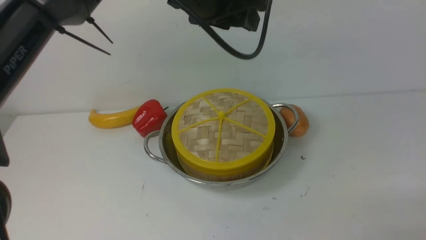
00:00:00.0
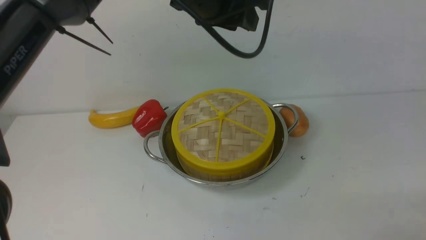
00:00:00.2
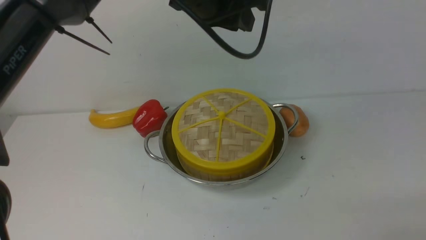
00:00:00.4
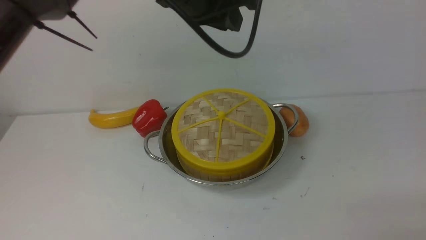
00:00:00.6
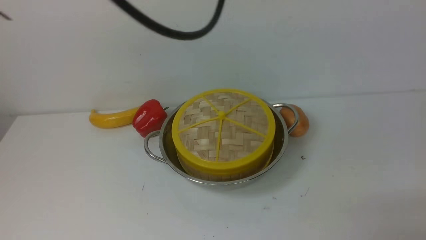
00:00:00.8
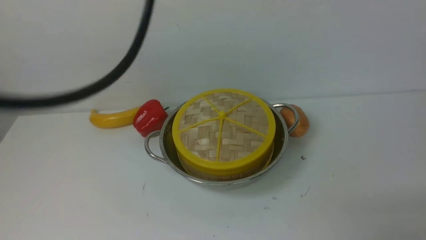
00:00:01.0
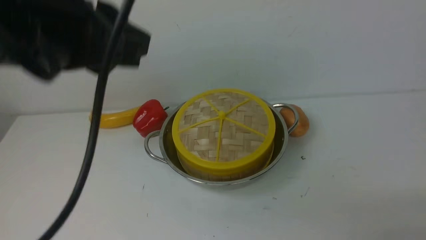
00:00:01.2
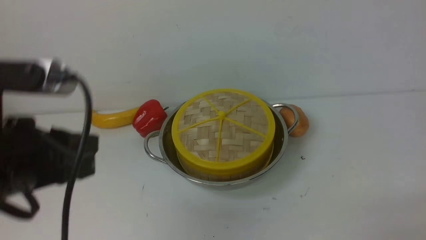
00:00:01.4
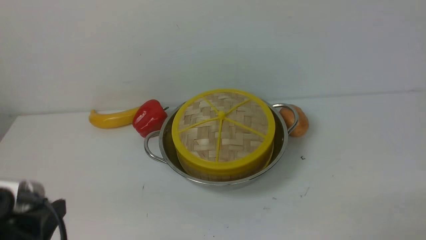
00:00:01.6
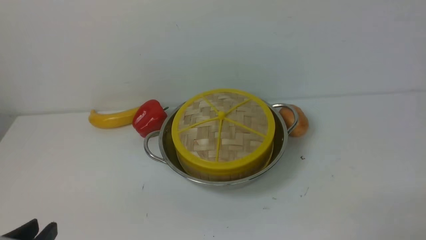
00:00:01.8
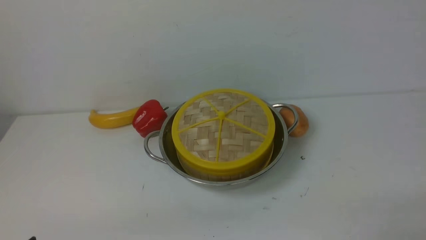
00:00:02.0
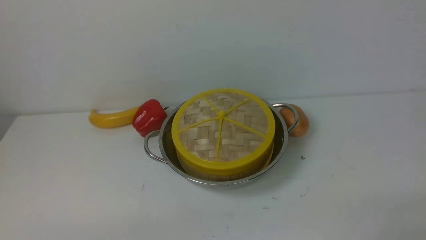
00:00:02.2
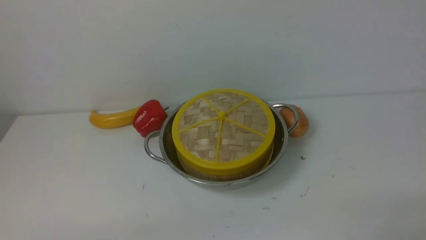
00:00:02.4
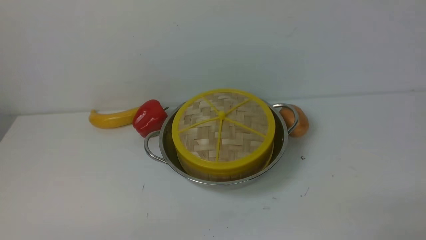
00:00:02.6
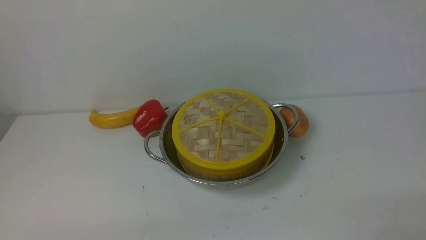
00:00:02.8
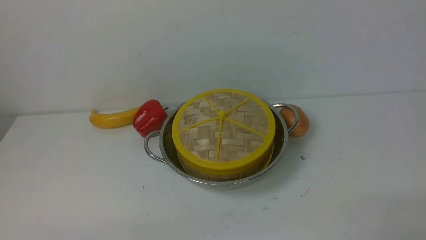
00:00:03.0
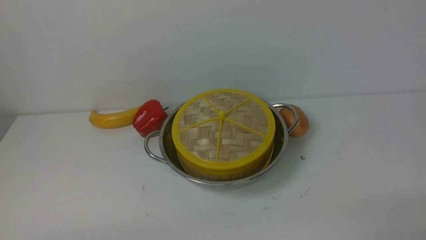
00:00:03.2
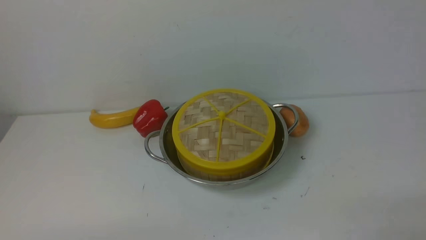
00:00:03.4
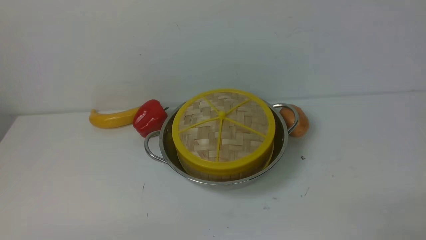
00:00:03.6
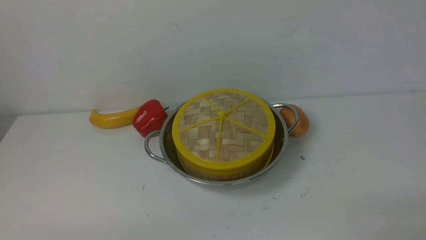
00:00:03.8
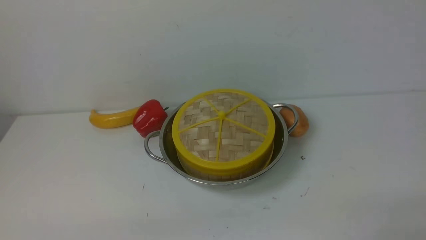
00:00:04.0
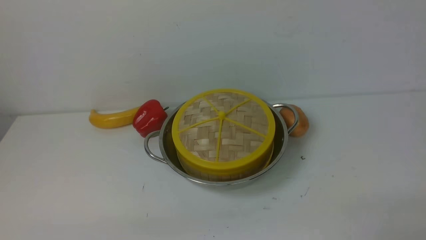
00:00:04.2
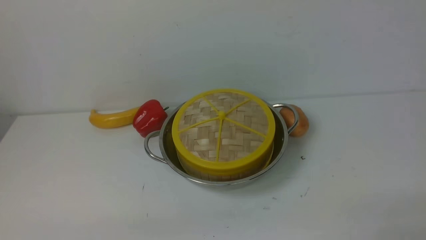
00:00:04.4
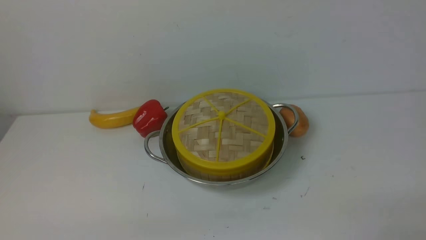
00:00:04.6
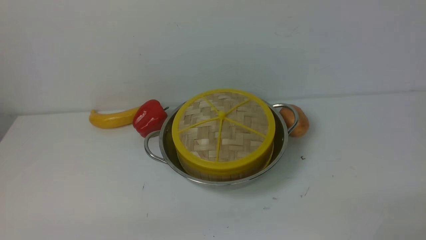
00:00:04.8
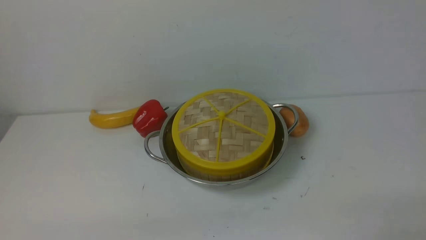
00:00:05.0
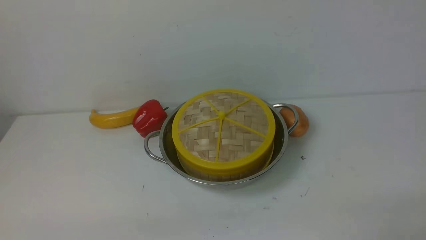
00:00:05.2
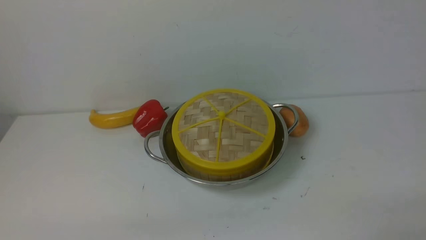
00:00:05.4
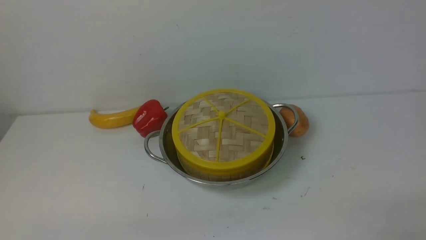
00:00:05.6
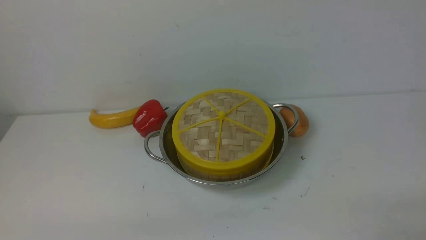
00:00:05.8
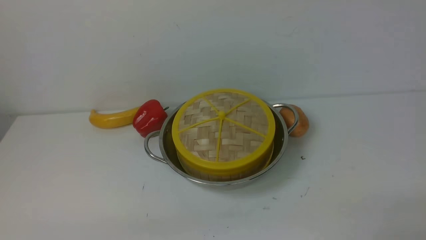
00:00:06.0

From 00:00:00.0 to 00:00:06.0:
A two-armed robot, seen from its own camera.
Task of the whole recording: place the steamer in the pot on the white table, and put the lid on the steamer.
From 00:00:00.0 to 00:00:01.6: The left gripper moves backward, to the left and downward, approximately 35 cm, and closes up.
From 00:00:01.6 to 00:00:03.0: The left gripper travels downward and backward by some 10 cm.
From 00:00:04.4 to 00:00:06.0: Both grippers stay put.
